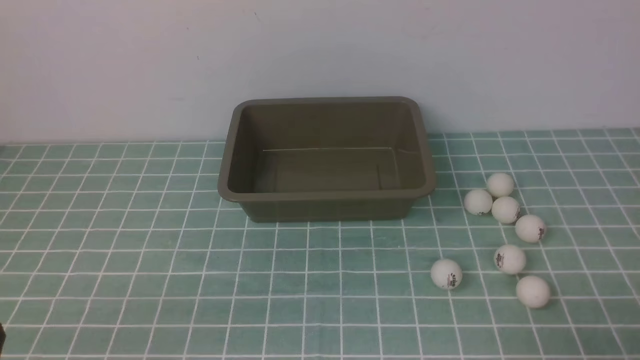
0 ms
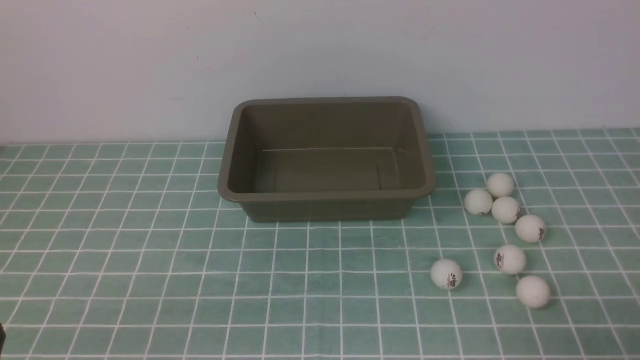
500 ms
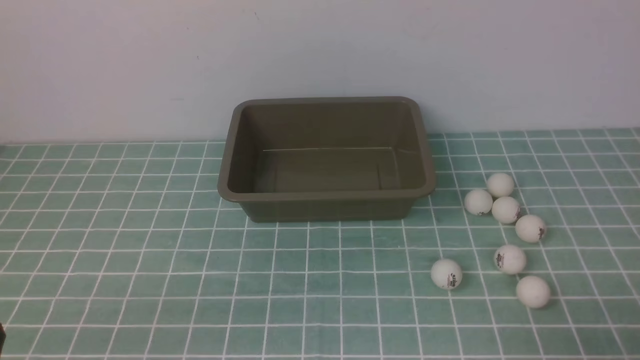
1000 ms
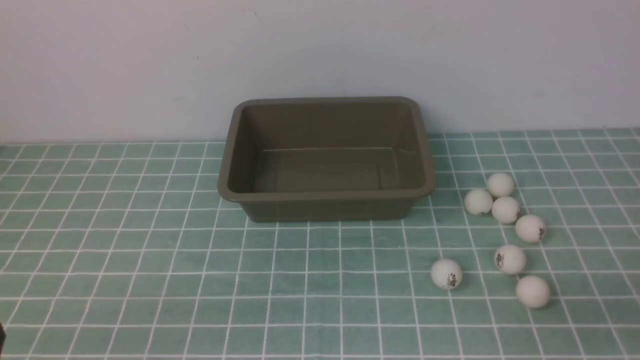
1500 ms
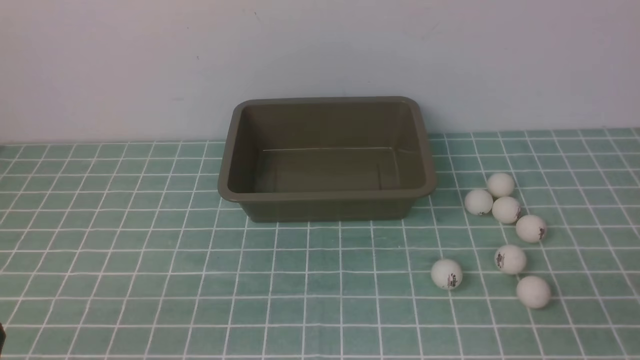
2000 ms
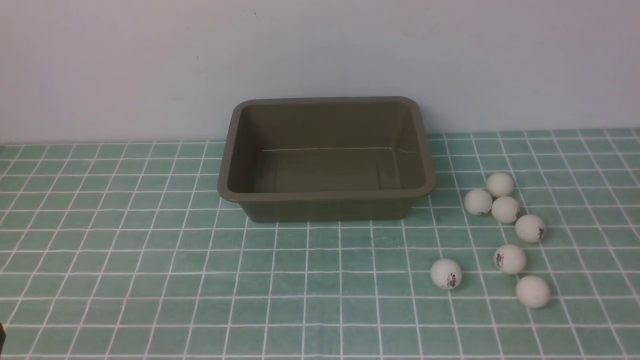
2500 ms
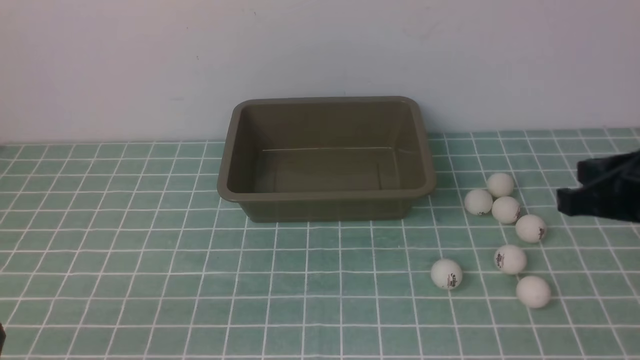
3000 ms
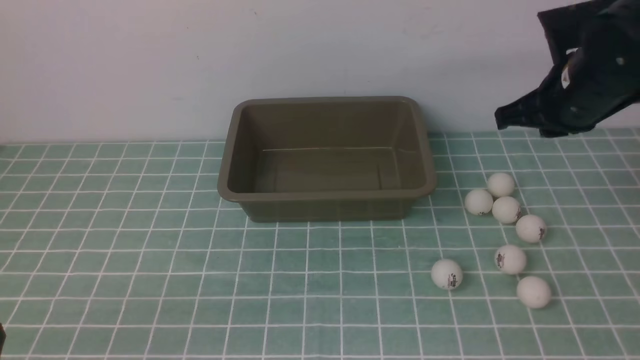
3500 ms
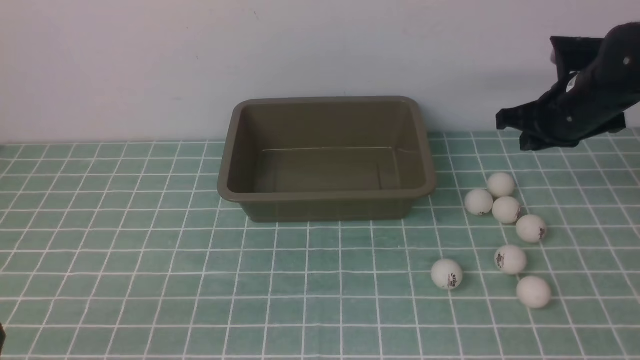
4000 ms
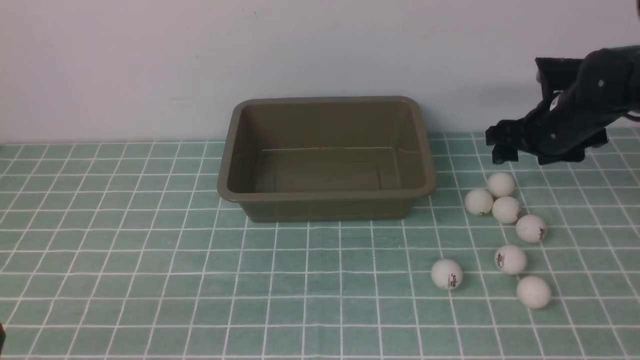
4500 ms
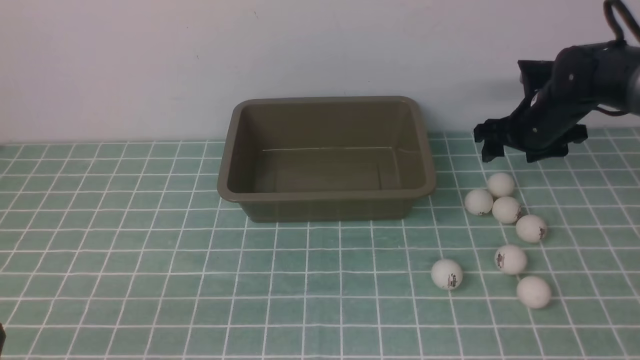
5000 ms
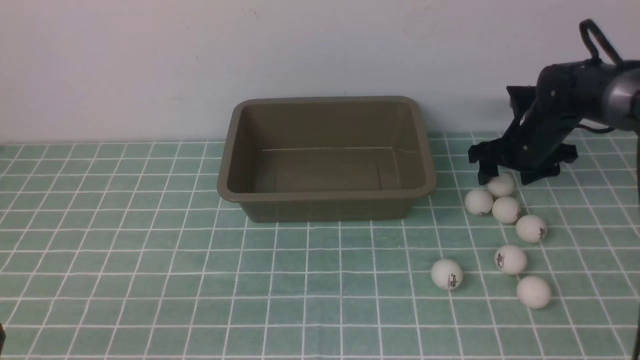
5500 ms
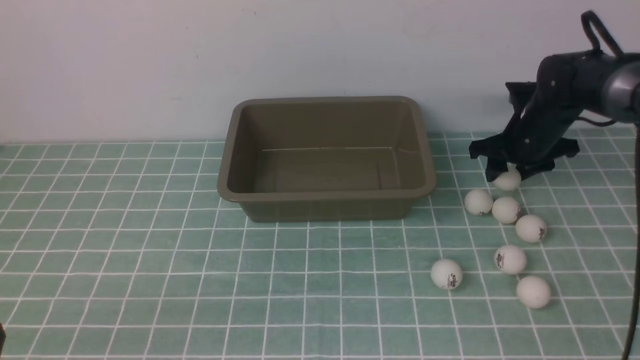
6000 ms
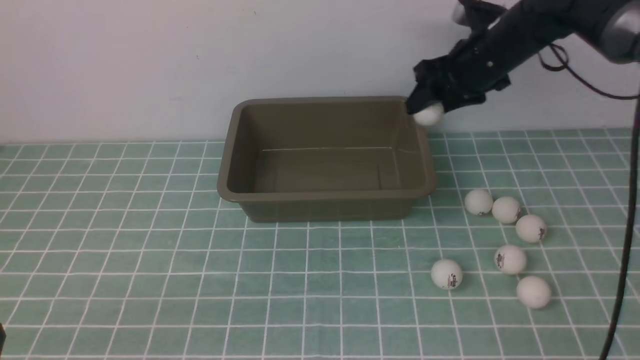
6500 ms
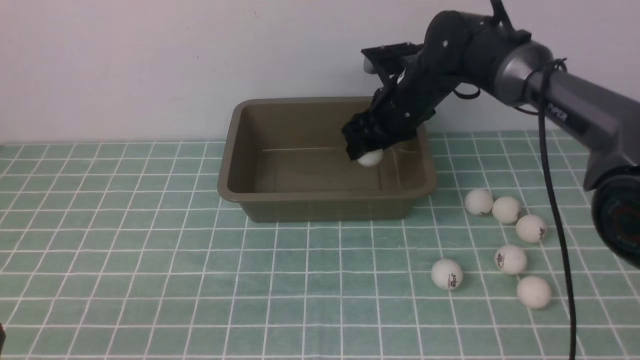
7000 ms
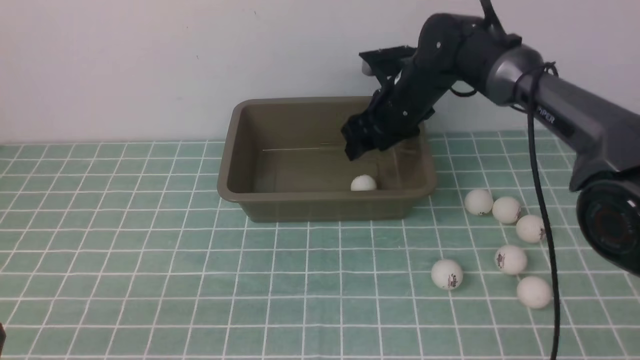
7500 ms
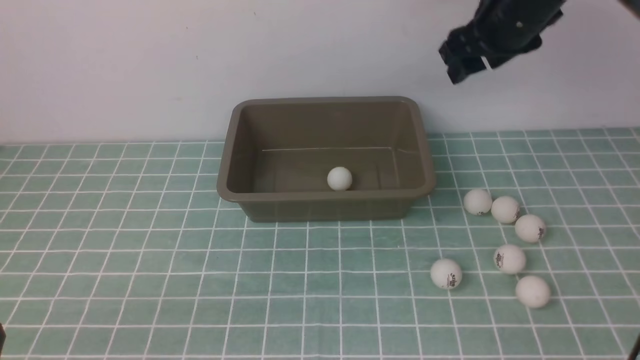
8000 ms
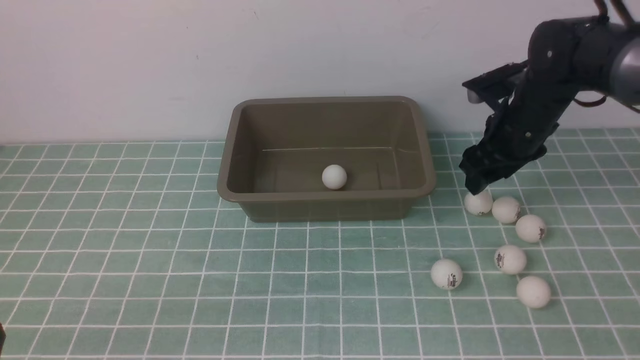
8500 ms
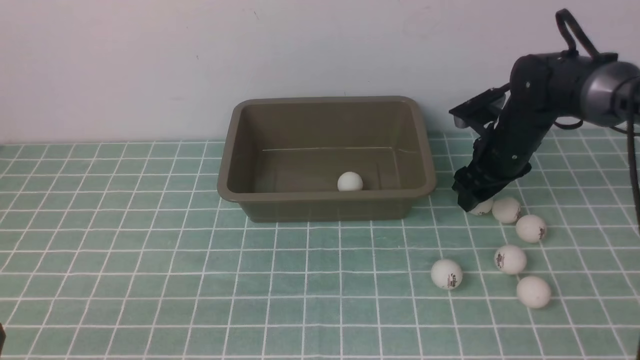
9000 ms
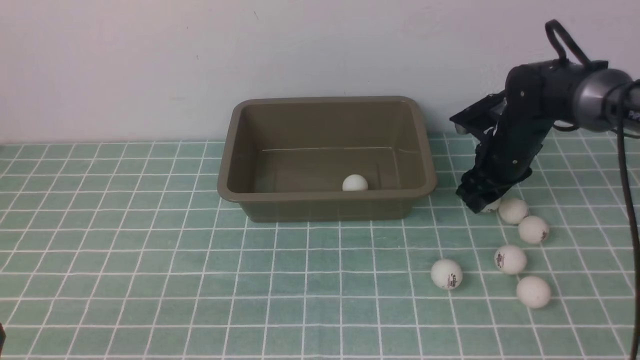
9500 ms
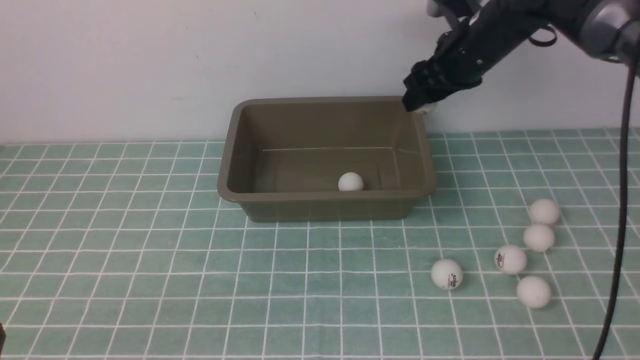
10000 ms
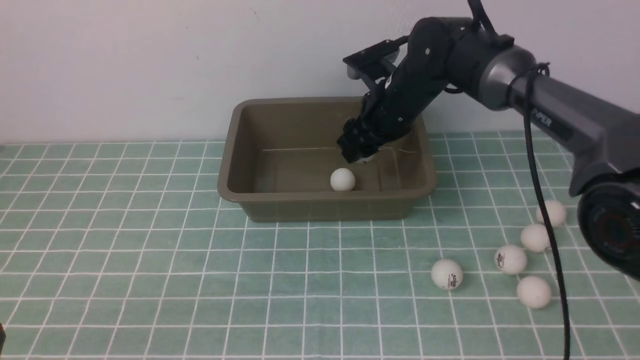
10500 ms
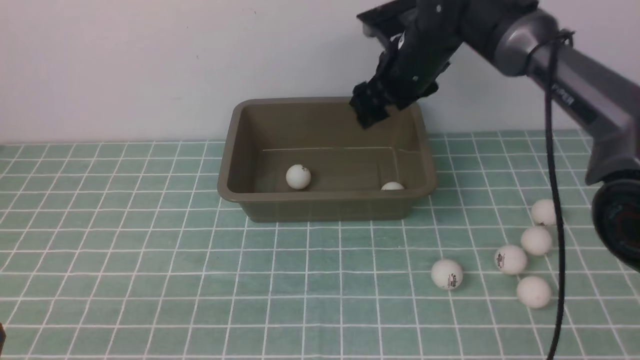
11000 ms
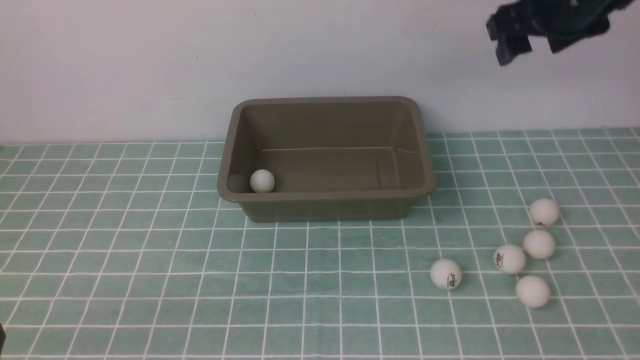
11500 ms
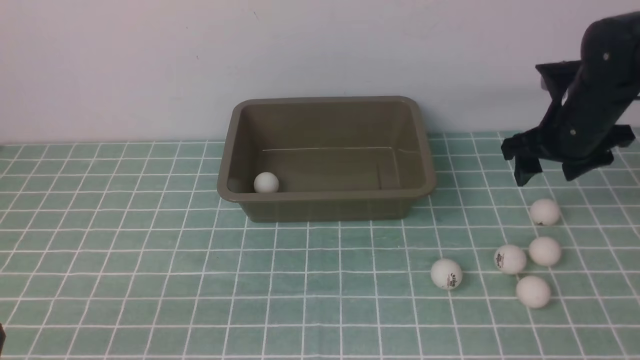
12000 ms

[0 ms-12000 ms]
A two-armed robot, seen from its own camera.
Step, 0 ms to 6000 ms: use the right arm to clamp the table tennis ball closest to it.
Step, 6500 ms to 7000 ms: use the right arm to put the table tennis ball into the box.
Step, 7500 ms to 9500 ms: use the right arm to clamp the table tennis ball closest to it.
Step, 10000 ms to 10500 ms: use the right arm to put the table tennis ball into the box.
2000 ms to 4000 ms: The right gripper goes about 35 cm forward.
4000 ms to 6000 ms: The right gripper moves forward and downward, approximately 10 cm, and opens its fingers.
6000 ms to 8000 ms: The right gripper travels upward and to the left by some 15 cm.
8000 ms to 10000 ms: The right gripper heads downward and to the left, covering about 10 cm.
10000 ms to 12000 ms: The right gripper travels to the right and backward by some 15 cm.

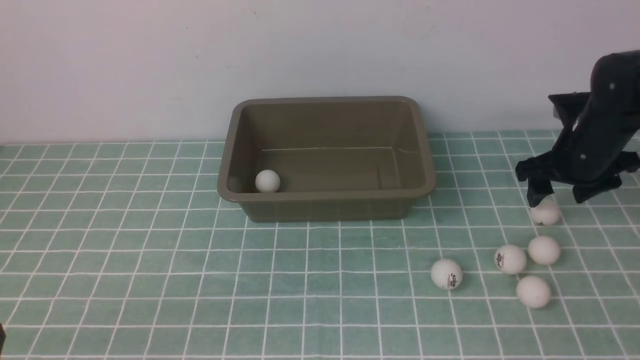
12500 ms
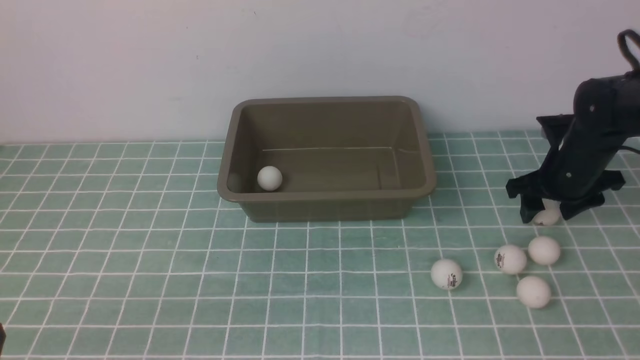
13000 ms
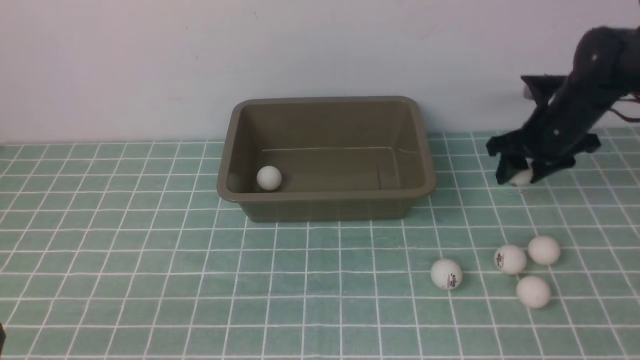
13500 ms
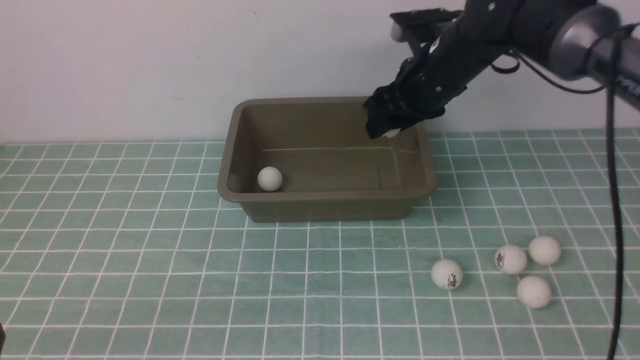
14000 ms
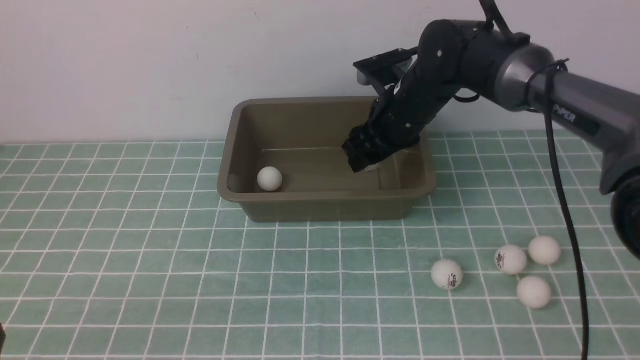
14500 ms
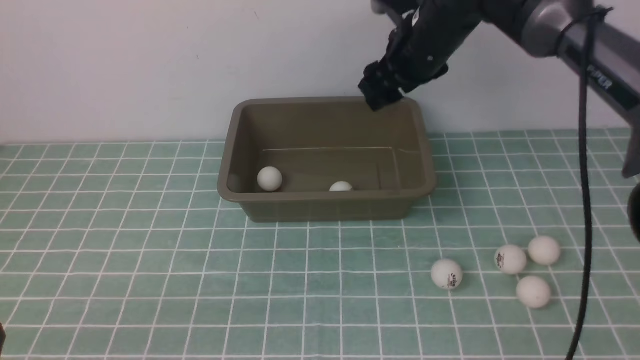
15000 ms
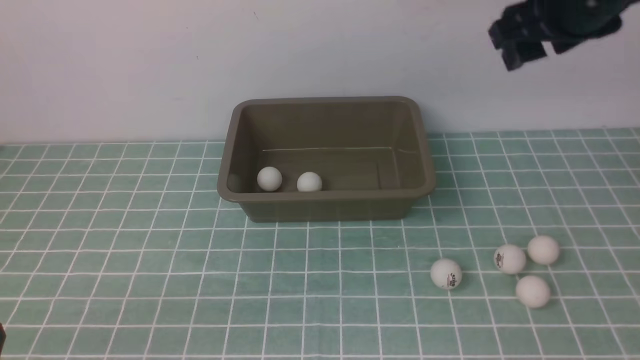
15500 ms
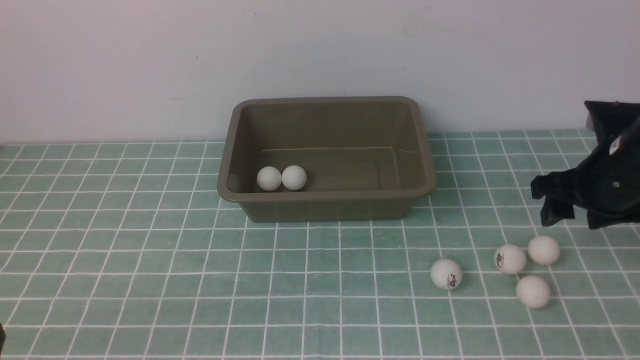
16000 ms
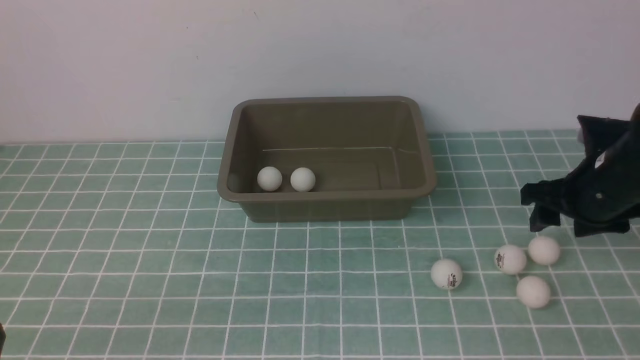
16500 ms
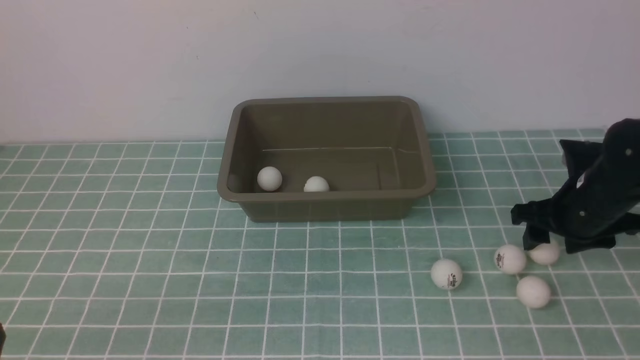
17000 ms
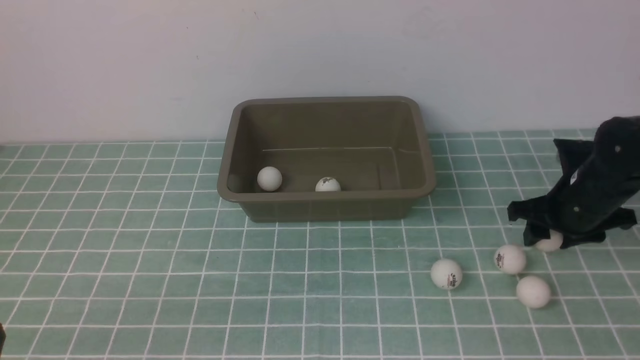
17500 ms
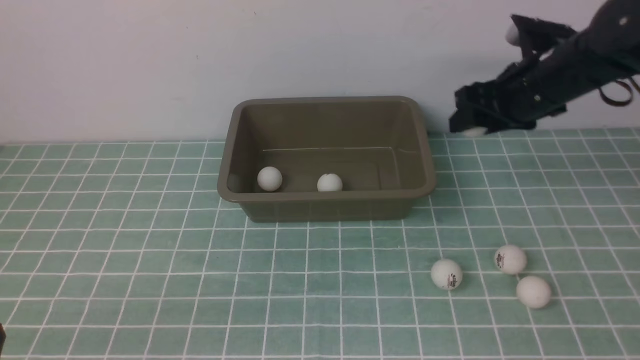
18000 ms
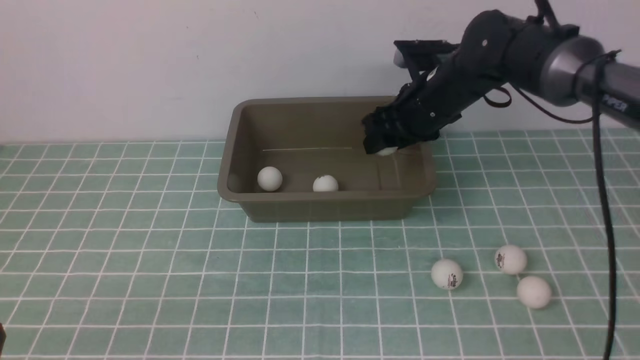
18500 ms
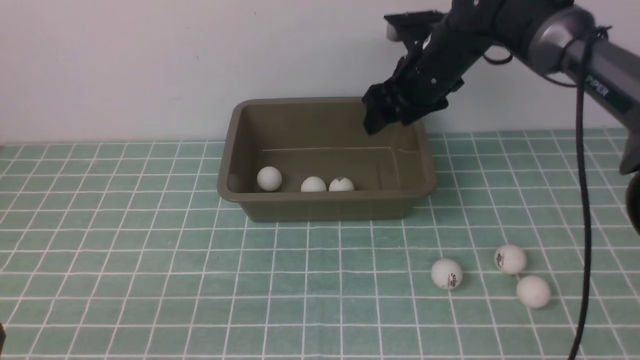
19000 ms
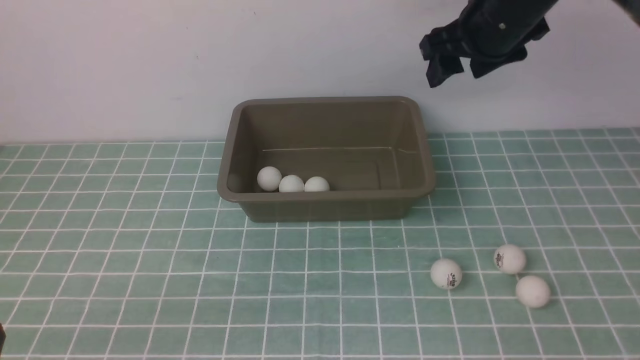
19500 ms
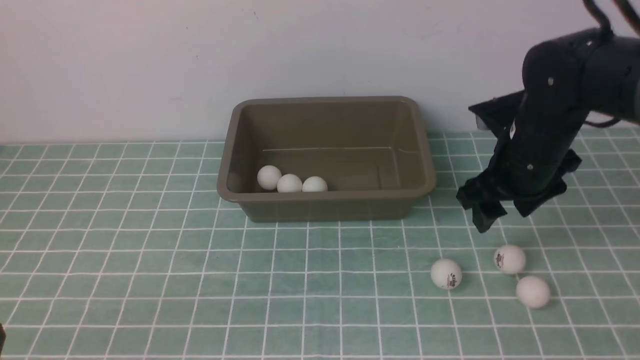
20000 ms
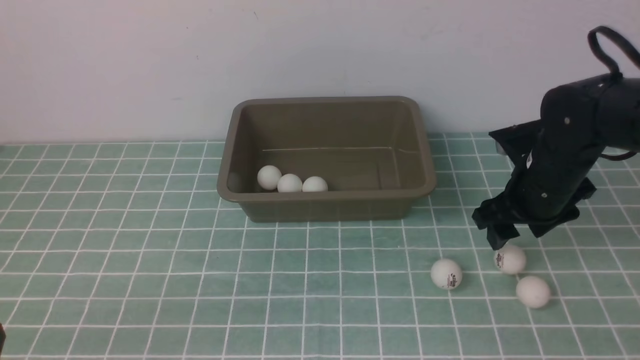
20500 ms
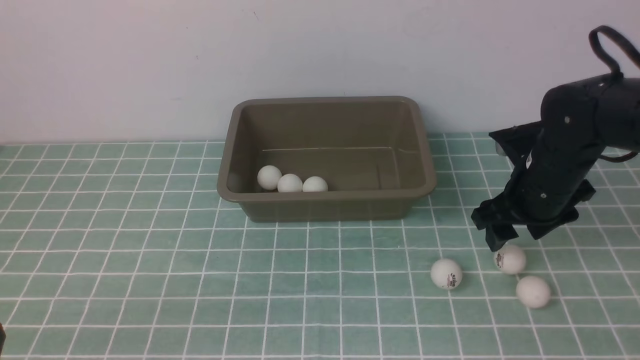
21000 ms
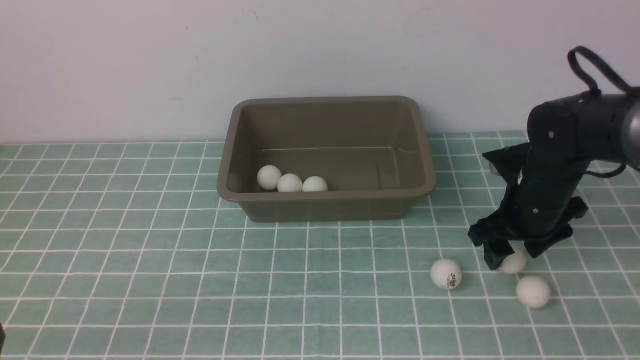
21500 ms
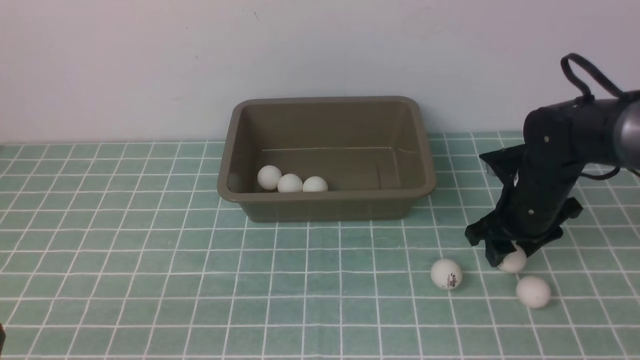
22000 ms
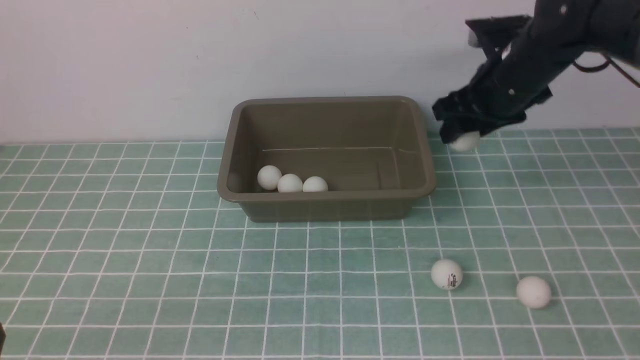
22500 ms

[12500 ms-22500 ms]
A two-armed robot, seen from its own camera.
Step, 14000 ms to 14500 ms: use the right arm to put the table tennis ball into the box.
Step, 15000 ms to 17500 ms: use the right arm to clamp the table tennis ball closest to it.
Step, 18000 ms to 18500 ms: use the right arm to put the table tennis ball into the box.
Step, 19000 ms to 22000 ms: use the right arm to clamp the table tennis ball closest to it.
12500 ms to 14500 ms: The right gripper goes about 20 cm to the left.
14500 ms to 16500 ms: The right gripper moves to the right and backward, some 20 cm.
16500 ms to 18500 ms: The right gripper goes some 20 cm to the left and forward.
18500 ms to 20500 ms: The right gripper travels to the right and backward by approximately 15 cm, and moves about 10 cm upward and comes back.
20500 ms to 22500 ms: The right gripper is displaced upward and forward by roughly 10 cm.
